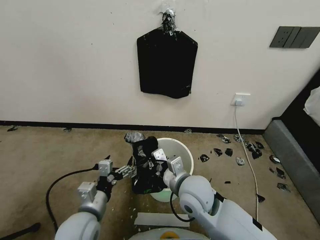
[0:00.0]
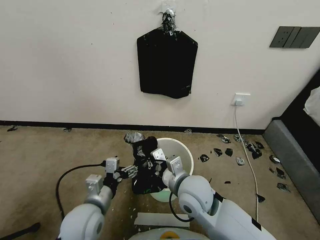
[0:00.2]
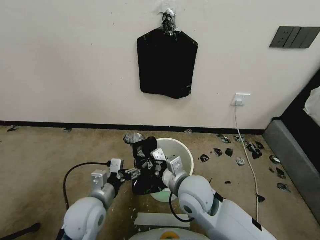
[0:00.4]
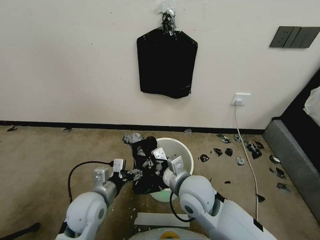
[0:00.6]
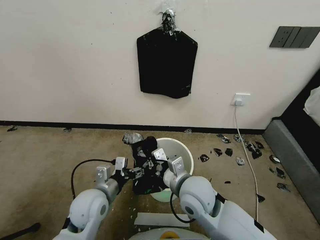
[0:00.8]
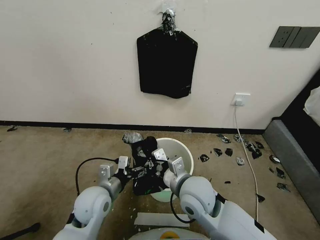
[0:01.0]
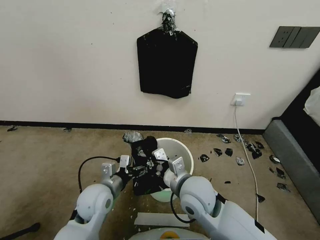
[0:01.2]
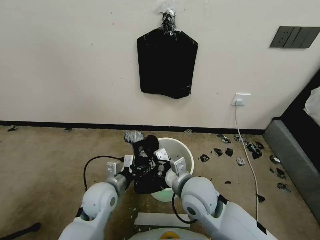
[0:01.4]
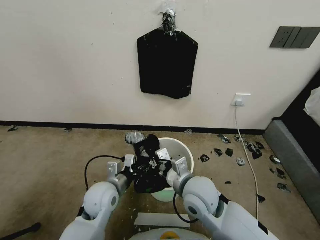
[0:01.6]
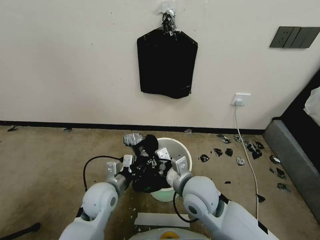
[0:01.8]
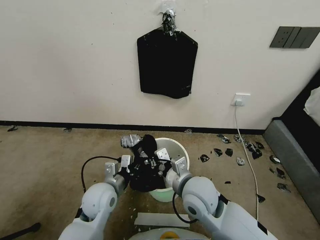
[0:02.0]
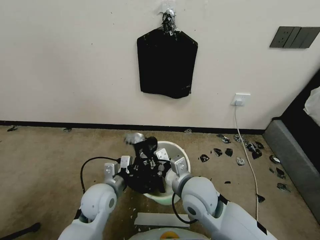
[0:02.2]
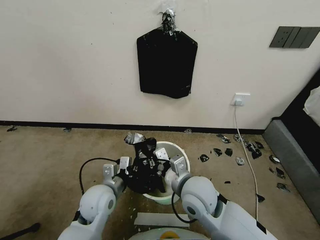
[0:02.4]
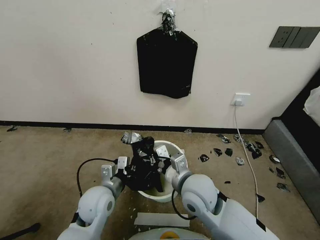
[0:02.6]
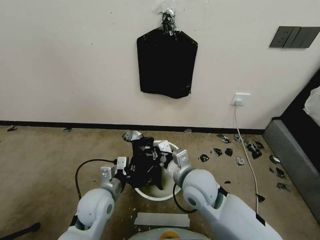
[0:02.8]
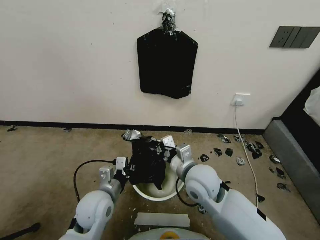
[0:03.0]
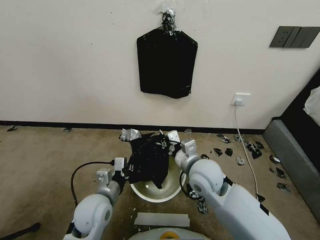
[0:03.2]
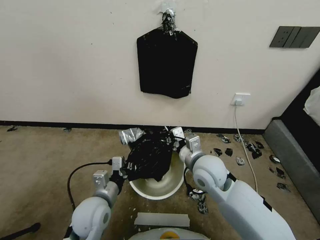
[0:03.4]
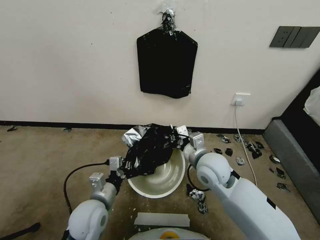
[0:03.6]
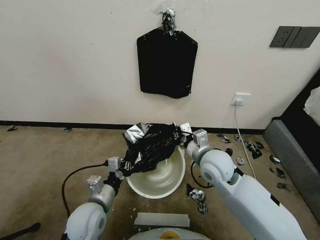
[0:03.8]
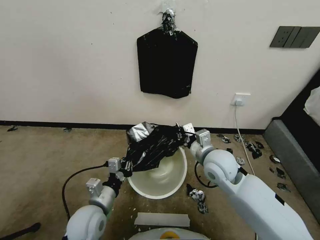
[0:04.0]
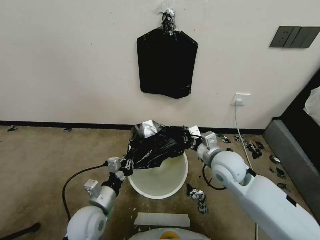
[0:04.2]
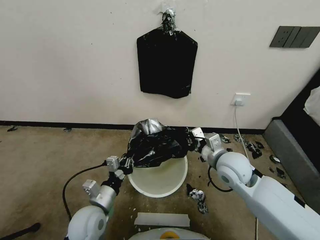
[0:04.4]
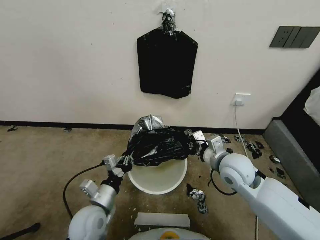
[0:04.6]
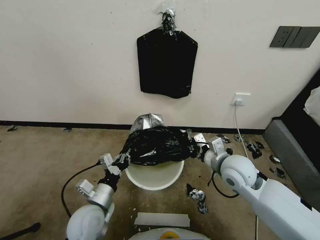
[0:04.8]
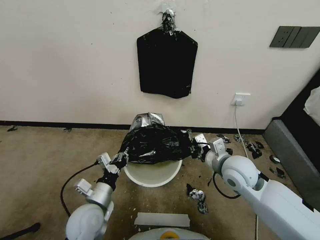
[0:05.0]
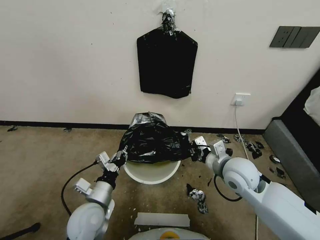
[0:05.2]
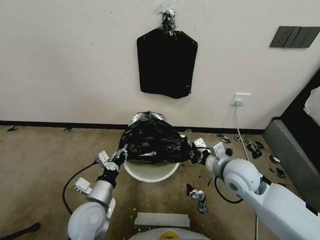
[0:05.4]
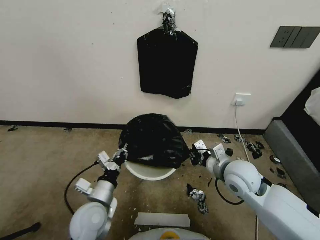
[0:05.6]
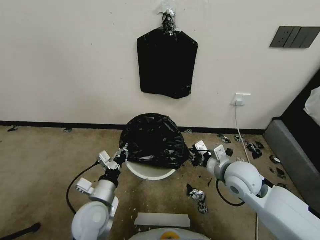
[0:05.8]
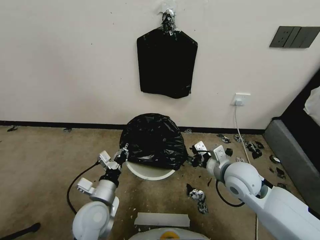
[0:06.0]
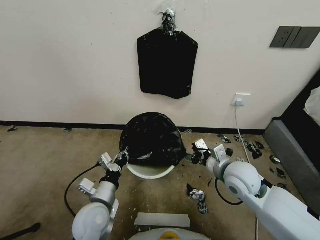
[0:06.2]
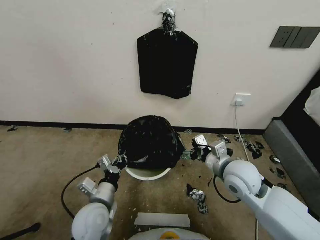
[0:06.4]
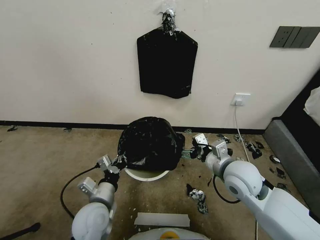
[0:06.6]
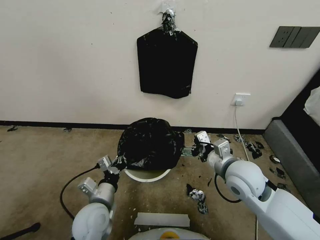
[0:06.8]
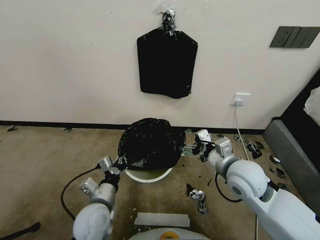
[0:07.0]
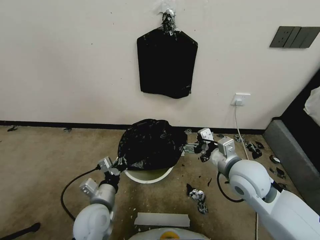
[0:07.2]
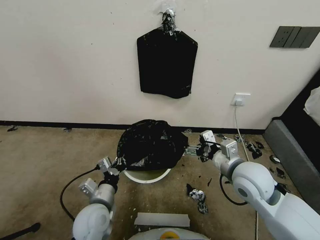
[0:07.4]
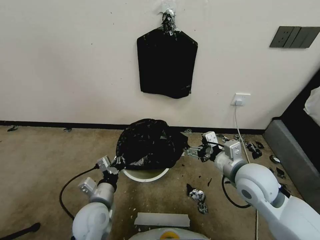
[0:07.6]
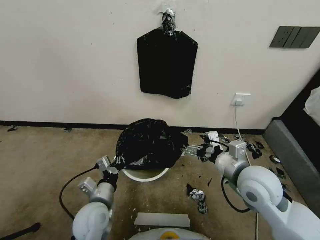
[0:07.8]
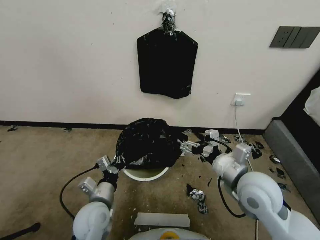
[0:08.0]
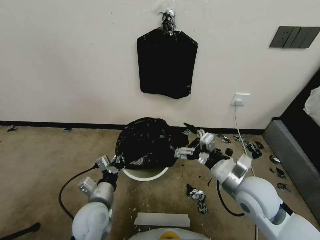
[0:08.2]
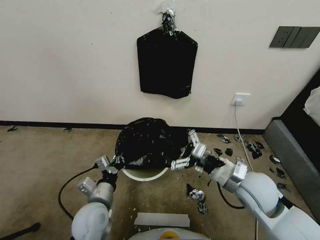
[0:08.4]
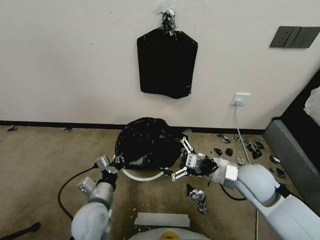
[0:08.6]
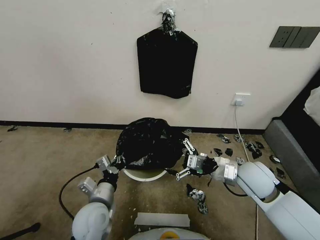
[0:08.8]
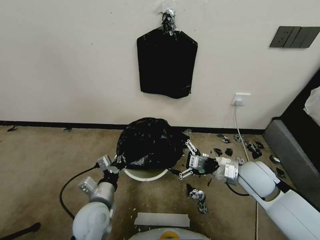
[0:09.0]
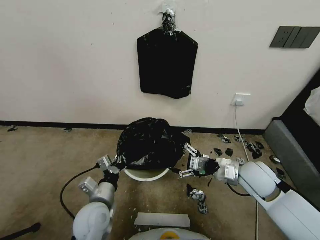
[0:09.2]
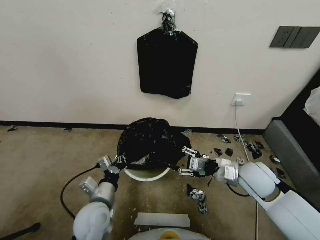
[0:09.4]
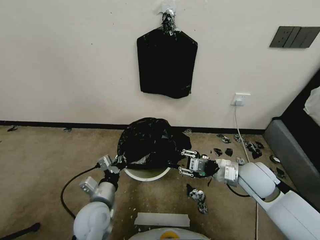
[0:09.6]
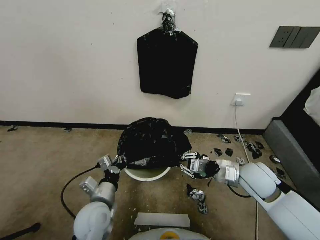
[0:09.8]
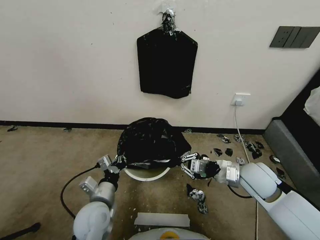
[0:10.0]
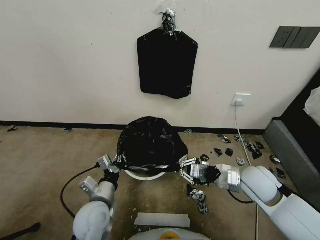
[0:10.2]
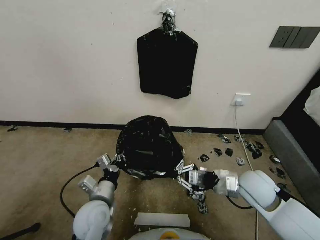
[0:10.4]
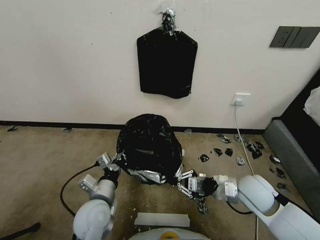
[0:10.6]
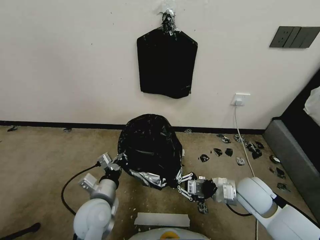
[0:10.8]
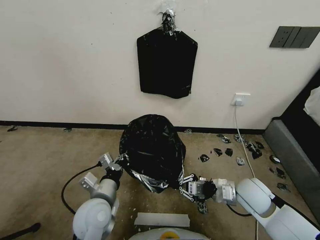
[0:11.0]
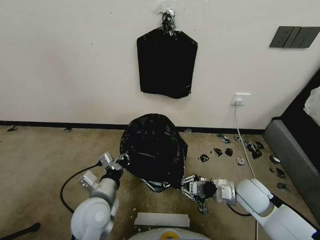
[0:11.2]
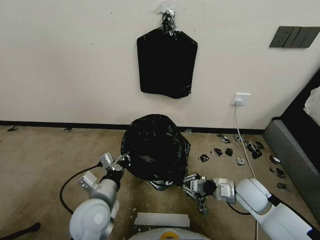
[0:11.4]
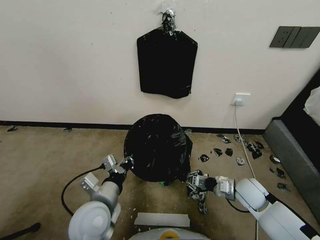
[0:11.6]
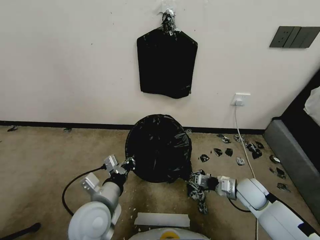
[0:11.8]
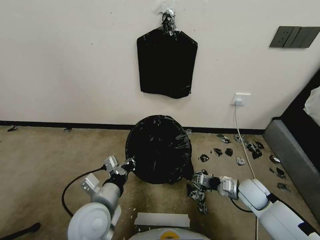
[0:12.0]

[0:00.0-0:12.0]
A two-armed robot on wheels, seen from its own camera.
Task of the whole recording: Place a trash bag onto the trash bin.
0:00.0 to 0:01.6: The left gripper goes approximately 10 cm forward.
0:01.6 to 0:03.0: The left gripper closes up.
0:03.0 to 0:04.4: The right gripper heads to the right, covering approximately 10 cm.
0:04.4 to 0:06.0: The right gripper opens its fingers.
0:06.0 to 0:07.6: The right gripper opens.
0:07.6 to 0:09.0: The right gripper goes about 5 cm downward.
0:09.0 to 0:10.4: The right gripper closes its fingers.
0:10.4 to 0:12.0: The left gripper moves upward, approximately 5 cm. The right gripper heads downward and to the right, covering about 15 cm.

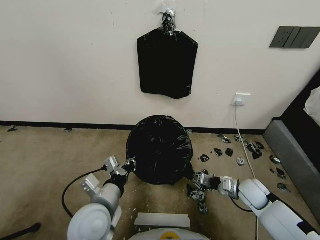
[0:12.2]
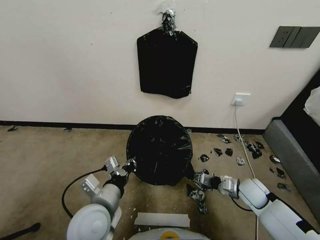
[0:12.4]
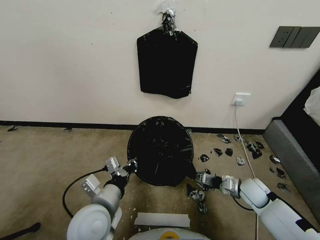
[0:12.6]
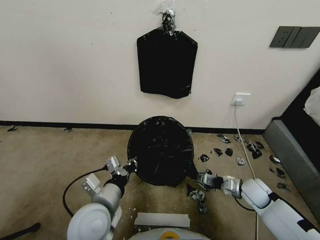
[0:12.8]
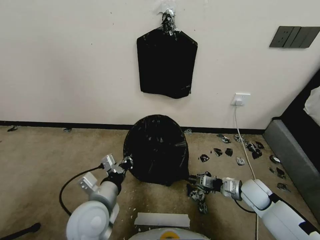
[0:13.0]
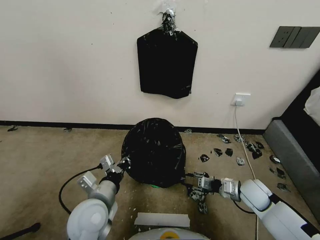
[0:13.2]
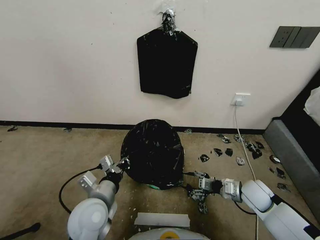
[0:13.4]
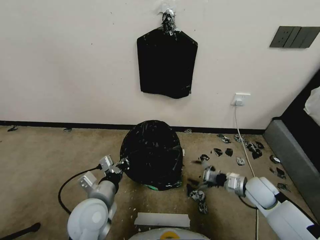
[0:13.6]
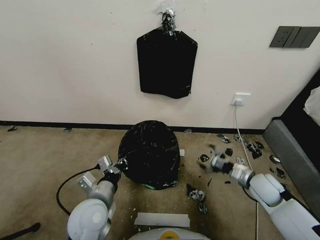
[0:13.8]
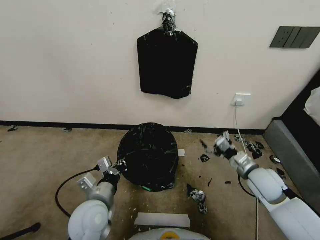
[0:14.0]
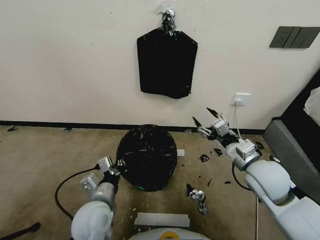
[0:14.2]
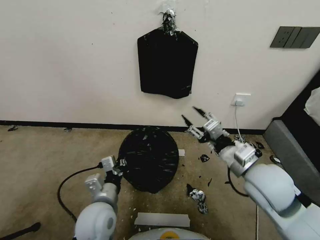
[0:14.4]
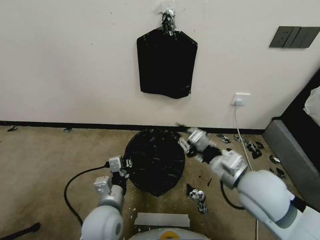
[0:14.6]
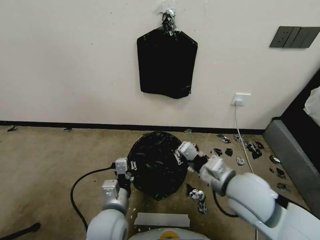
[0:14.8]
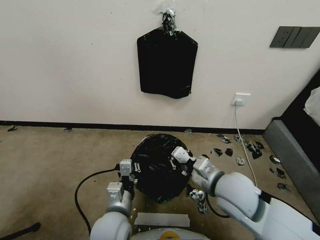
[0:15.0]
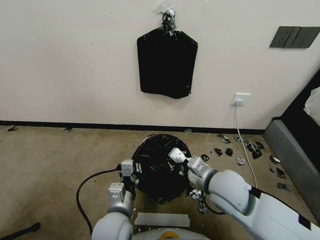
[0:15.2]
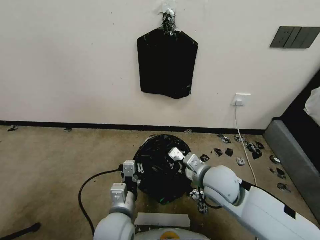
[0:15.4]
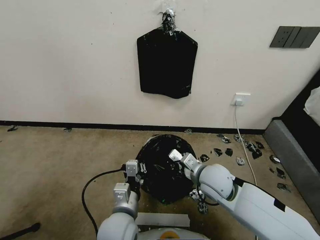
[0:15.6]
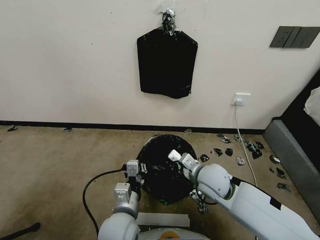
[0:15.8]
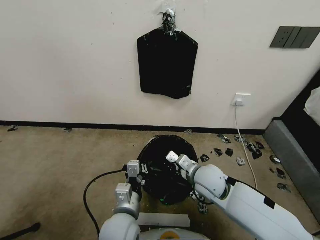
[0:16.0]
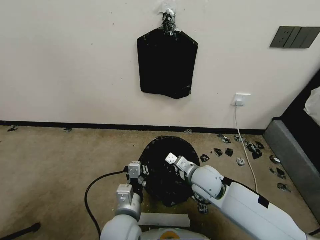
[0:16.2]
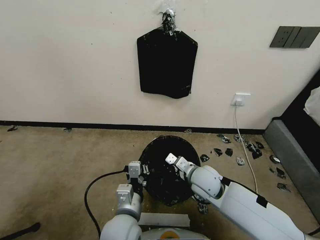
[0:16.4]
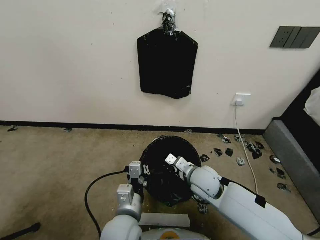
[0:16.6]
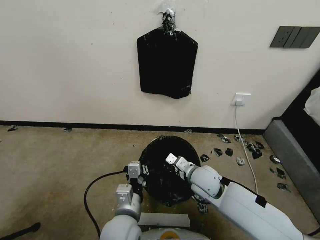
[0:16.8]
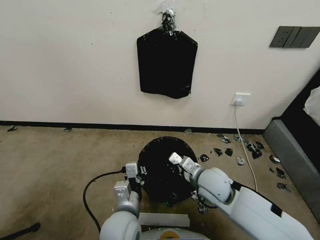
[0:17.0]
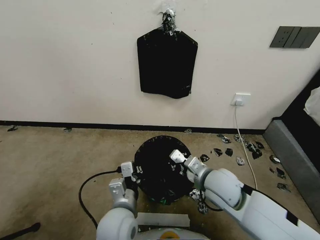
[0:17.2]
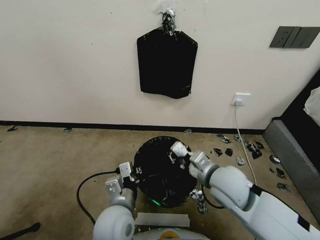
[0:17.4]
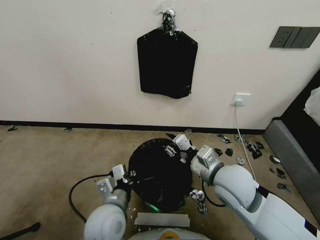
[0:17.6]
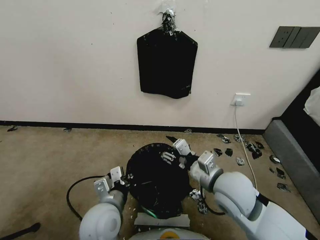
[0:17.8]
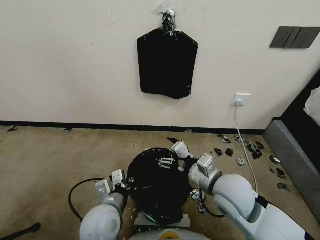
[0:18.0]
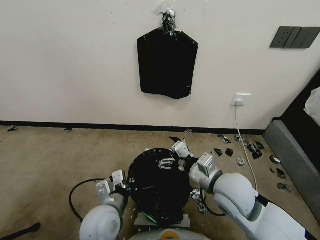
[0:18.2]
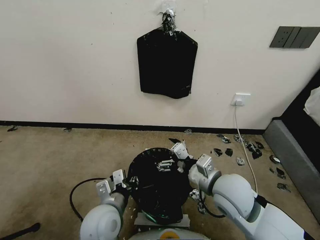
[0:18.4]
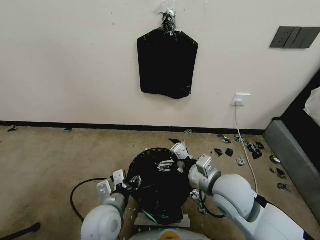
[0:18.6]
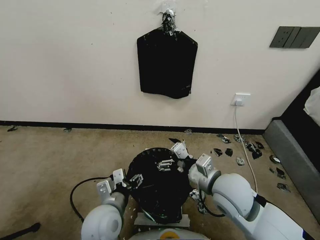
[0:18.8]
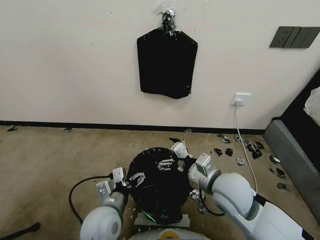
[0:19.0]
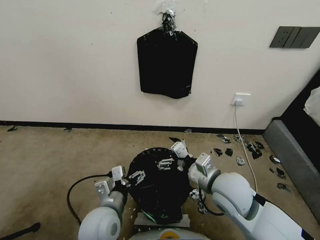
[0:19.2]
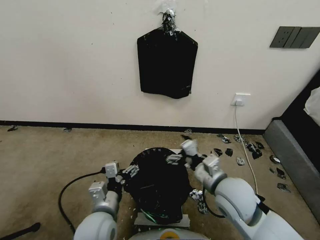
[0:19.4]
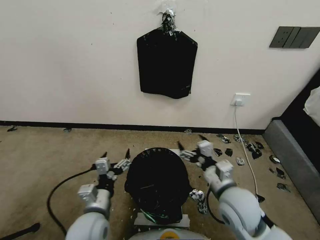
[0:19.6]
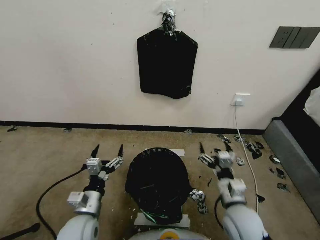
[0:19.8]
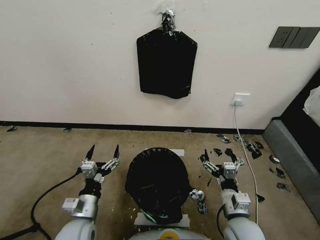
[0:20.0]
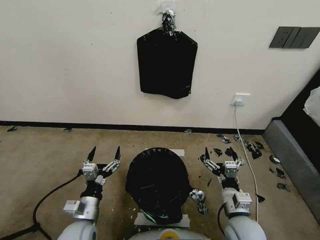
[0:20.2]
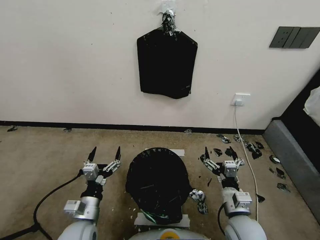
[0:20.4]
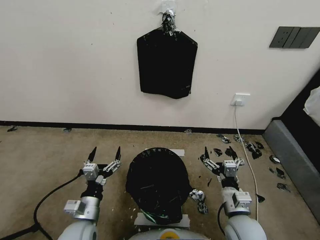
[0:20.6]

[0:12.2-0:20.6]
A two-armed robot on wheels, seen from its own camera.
Task of the whole recording: Place a trash bag onto the trash bin.
0:12.2 to 0:13.6: The right gripper opens.
0:13.6 to 0:15.0: The right gripper travels to the left and upward by roughly 25 cm, and closes up. The left gripper goes some 5 cm to the right.
0:15.0 to 0:16.4: The right gripper travels downward and forward by roughly 15 cm.
0:16.4 to 0:17.8: The left gripper is displaced to the left by approximately 5 cm; the right gripper heads upward and backward, covering approximately 10 cm, and opens.
0:17.8 to 0:19.2: The right gripper opens its fingers, while the left gripper opens its fingers.
0:19.2 to 0:20.6: The left gripper shifts roughly 10 cm to the left and downward, while the right gripper heads downward, backward and to the right, covering about 15 cm.

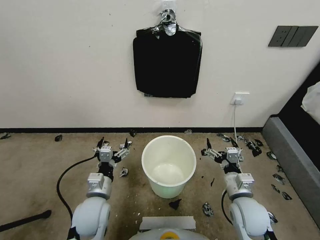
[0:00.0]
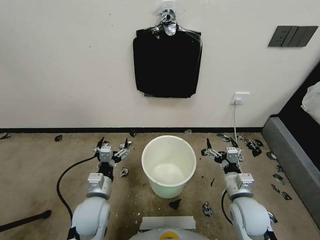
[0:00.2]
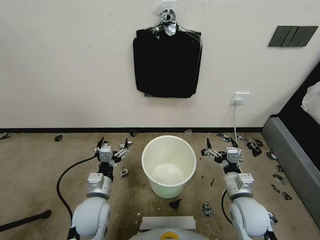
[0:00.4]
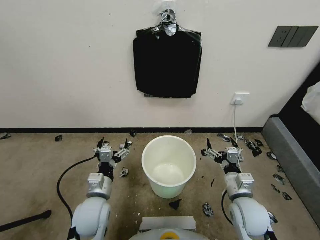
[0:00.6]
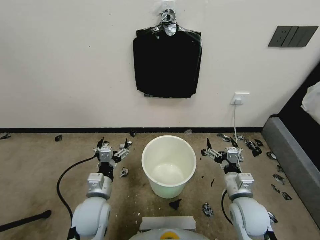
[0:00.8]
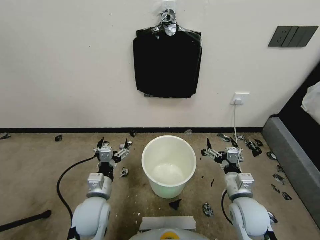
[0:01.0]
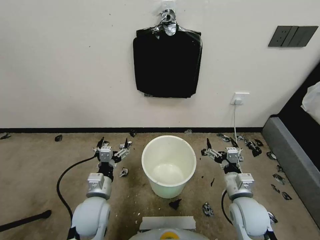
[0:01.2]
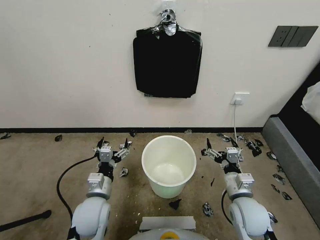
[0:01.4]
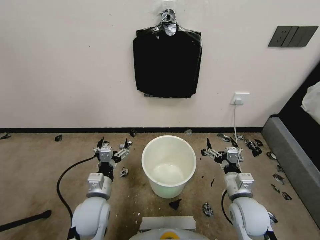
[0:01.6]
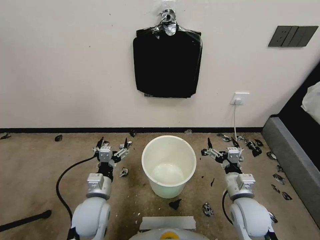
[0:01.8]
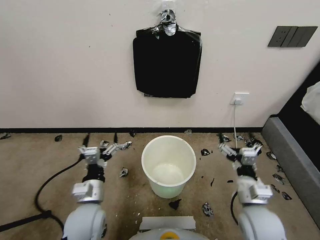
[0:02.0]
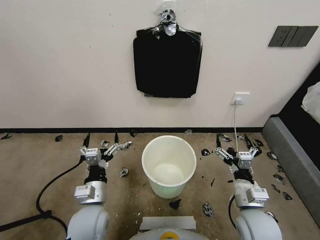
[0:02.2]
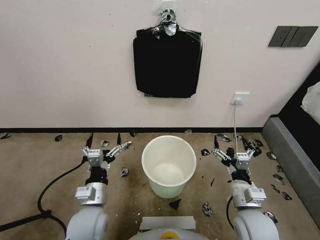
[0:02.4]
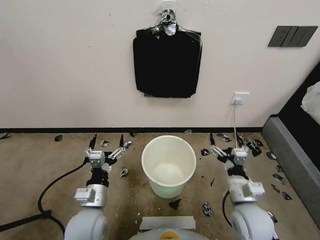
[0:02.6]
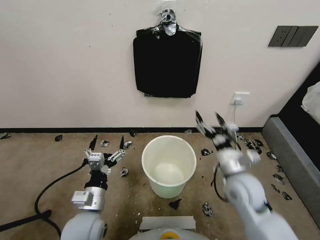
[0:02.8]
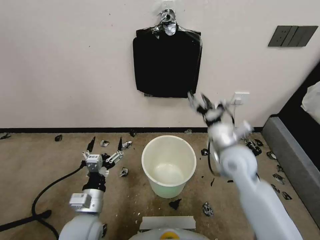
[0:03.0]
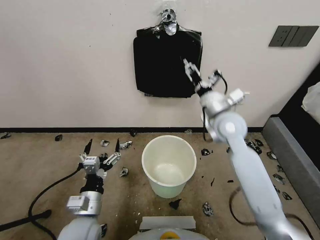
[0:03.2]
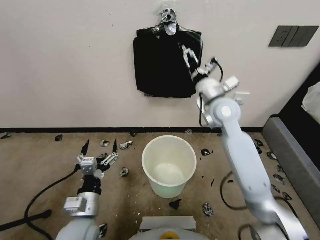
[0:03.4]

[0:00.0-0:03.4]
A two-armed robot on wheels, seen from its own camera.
Task of the whole recording: Place a trash bag onto the trash bin.
0:01.6 to 0:03.4: The left gripper heads backward, covering approximately 5 cm, while the right gripper moves forward and upward, approximately 35 cm.
